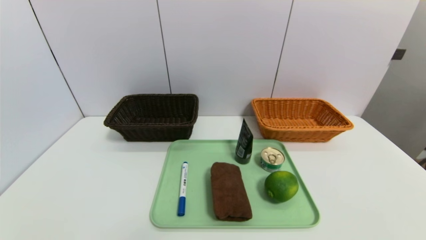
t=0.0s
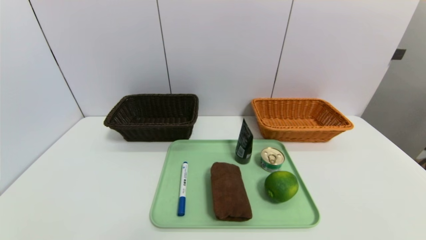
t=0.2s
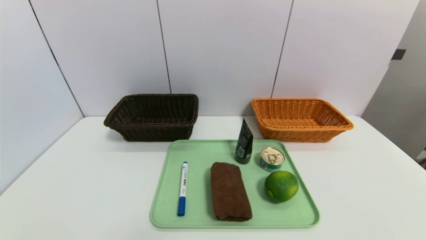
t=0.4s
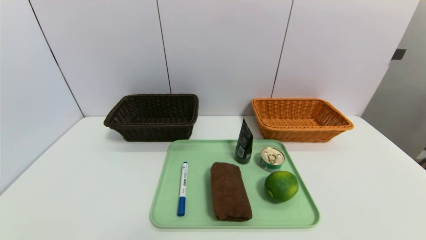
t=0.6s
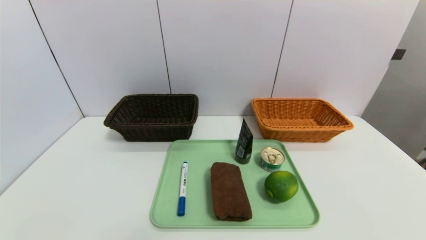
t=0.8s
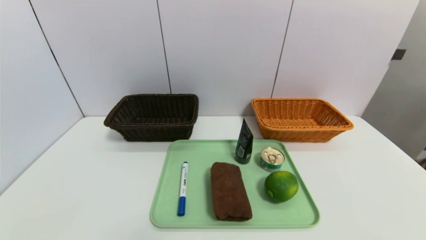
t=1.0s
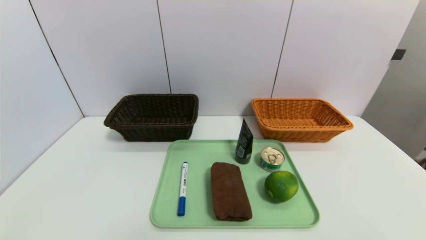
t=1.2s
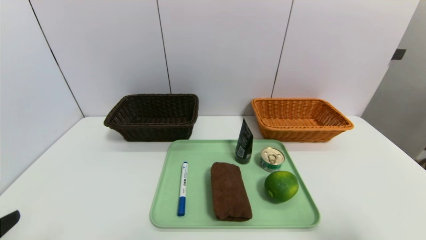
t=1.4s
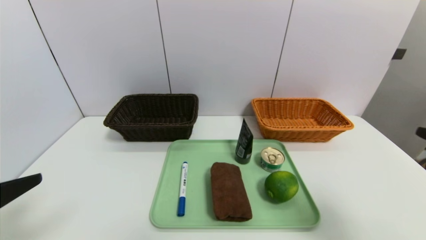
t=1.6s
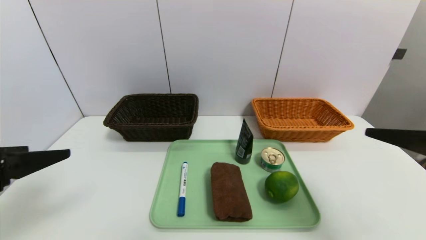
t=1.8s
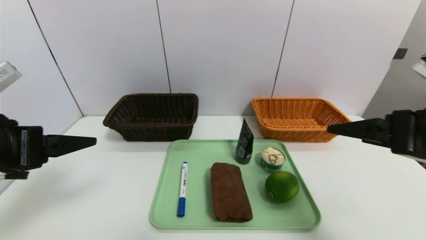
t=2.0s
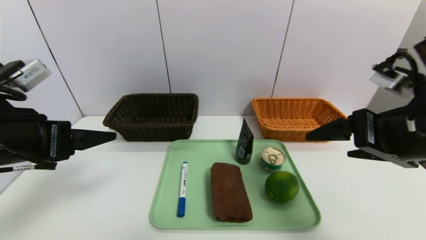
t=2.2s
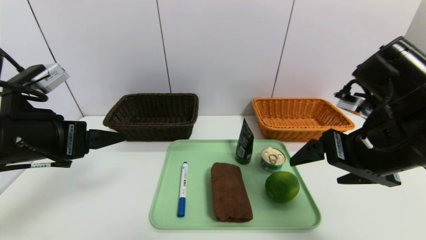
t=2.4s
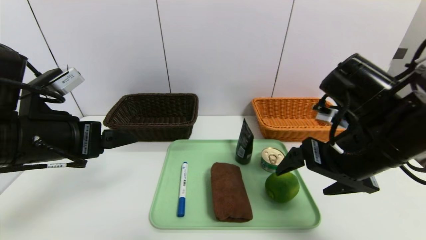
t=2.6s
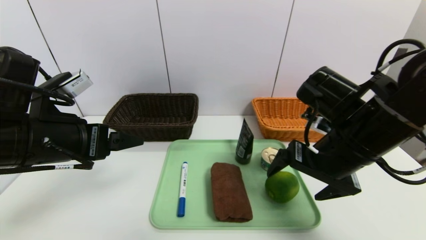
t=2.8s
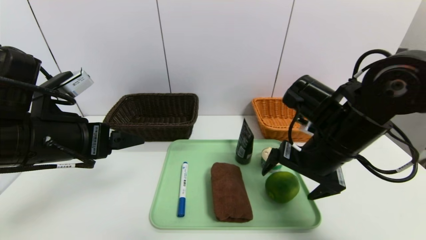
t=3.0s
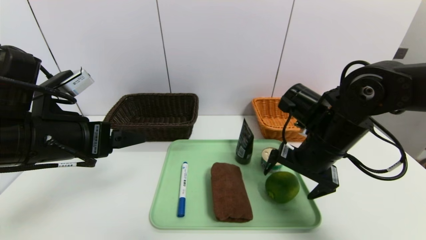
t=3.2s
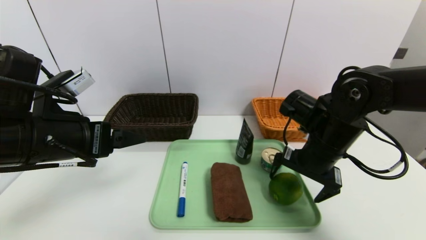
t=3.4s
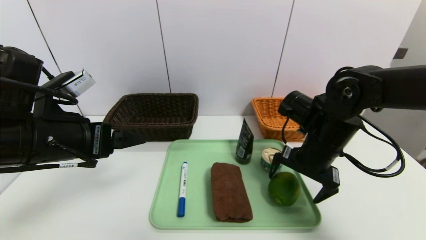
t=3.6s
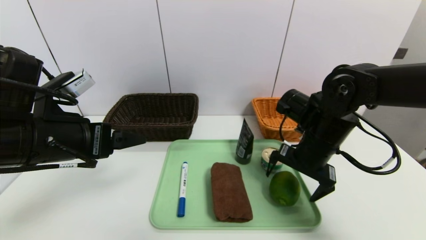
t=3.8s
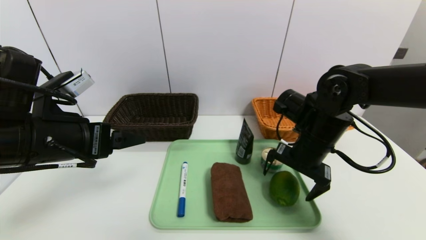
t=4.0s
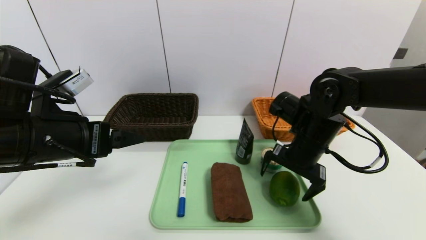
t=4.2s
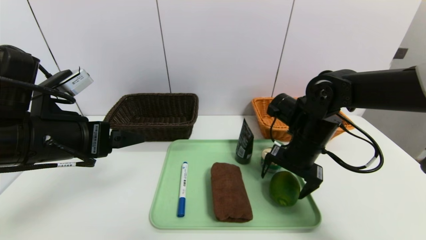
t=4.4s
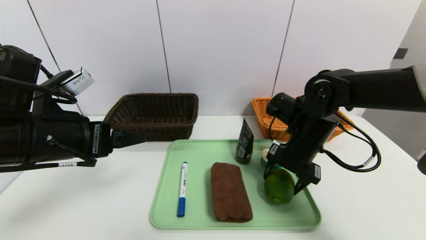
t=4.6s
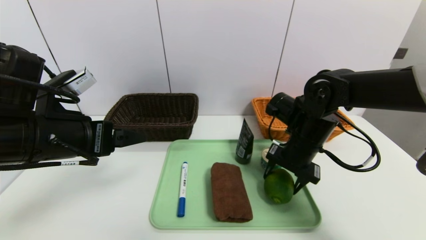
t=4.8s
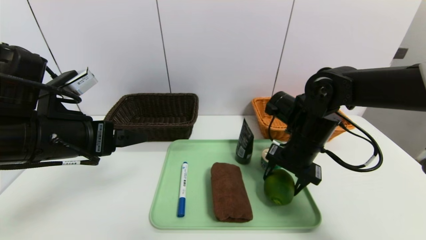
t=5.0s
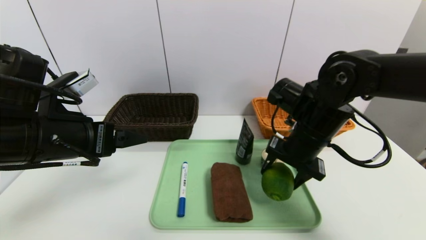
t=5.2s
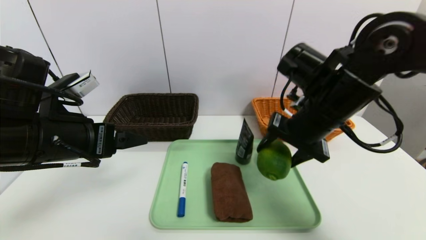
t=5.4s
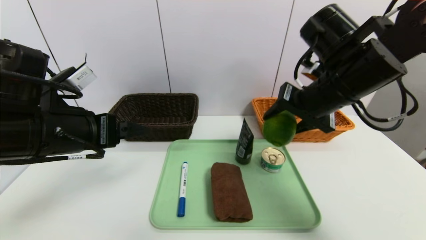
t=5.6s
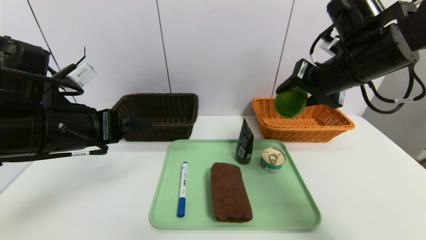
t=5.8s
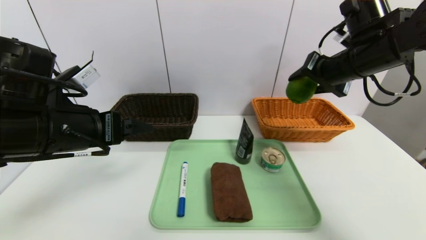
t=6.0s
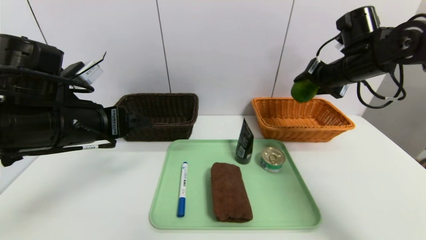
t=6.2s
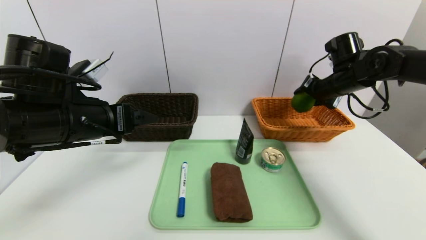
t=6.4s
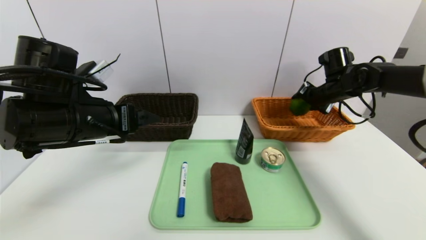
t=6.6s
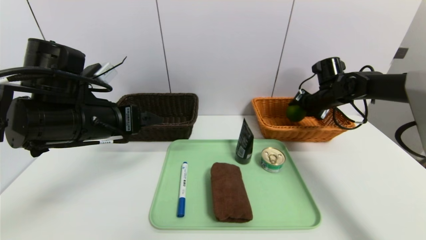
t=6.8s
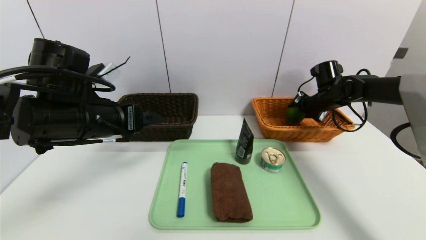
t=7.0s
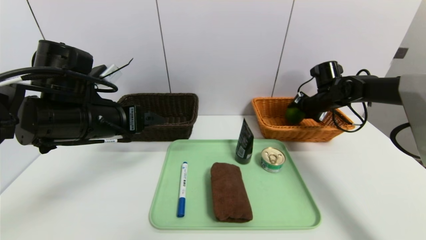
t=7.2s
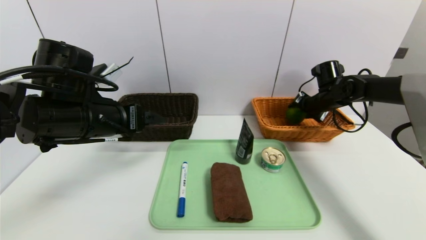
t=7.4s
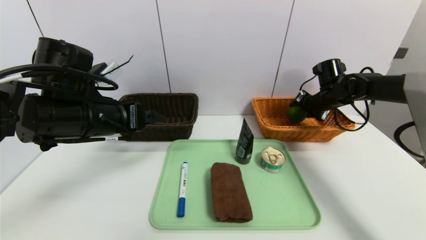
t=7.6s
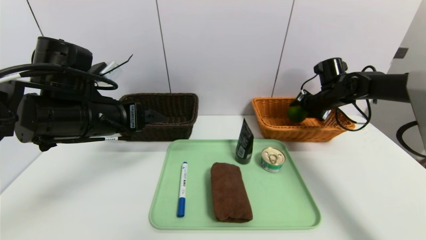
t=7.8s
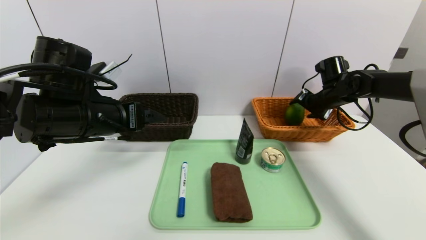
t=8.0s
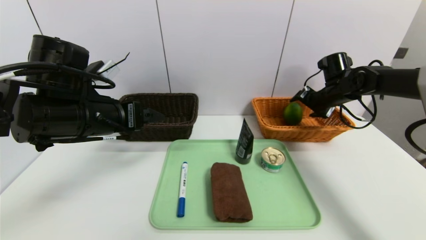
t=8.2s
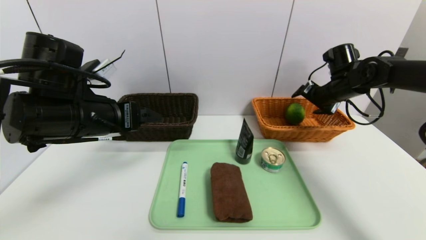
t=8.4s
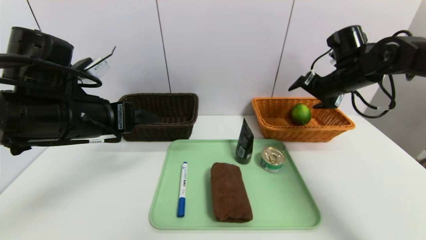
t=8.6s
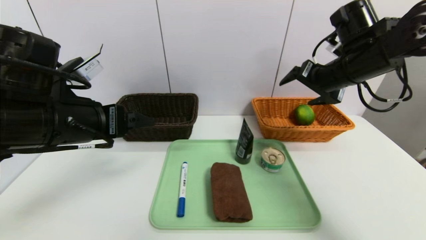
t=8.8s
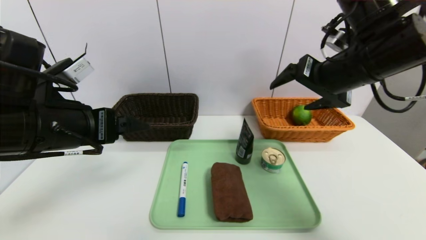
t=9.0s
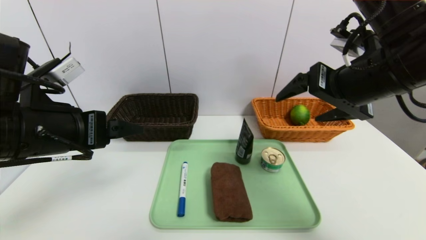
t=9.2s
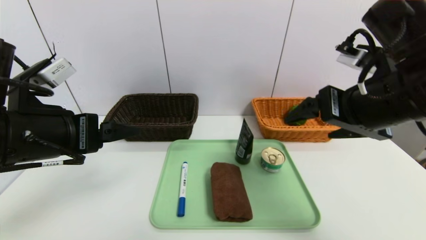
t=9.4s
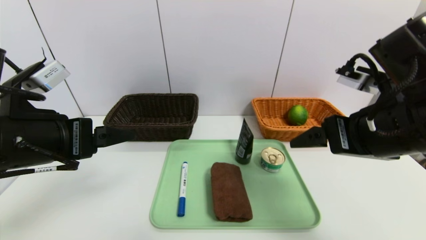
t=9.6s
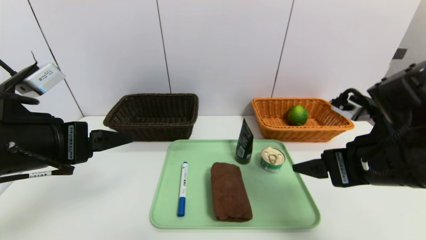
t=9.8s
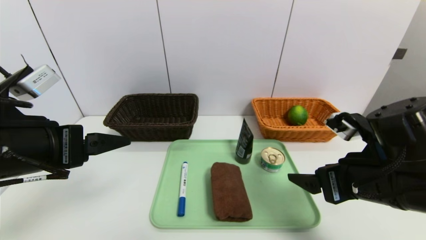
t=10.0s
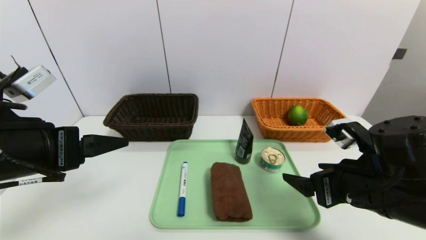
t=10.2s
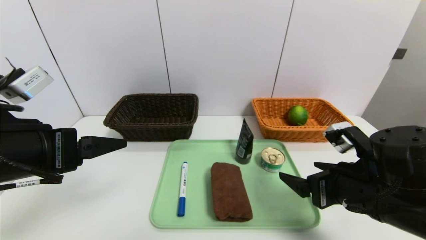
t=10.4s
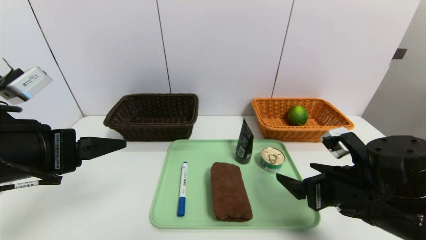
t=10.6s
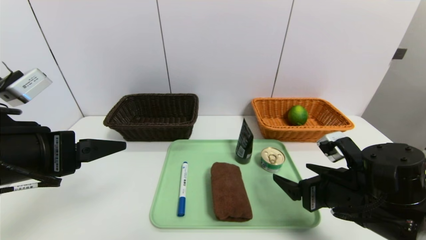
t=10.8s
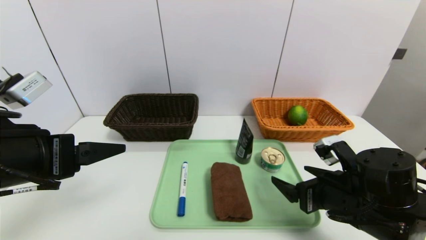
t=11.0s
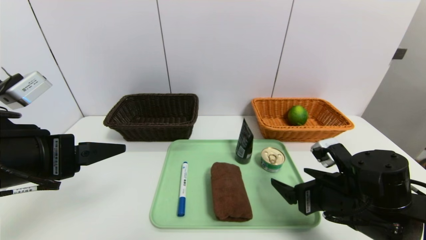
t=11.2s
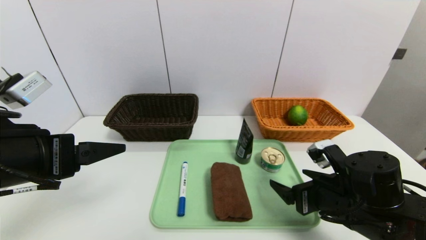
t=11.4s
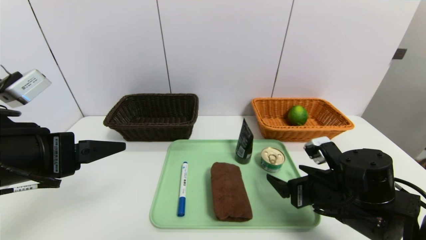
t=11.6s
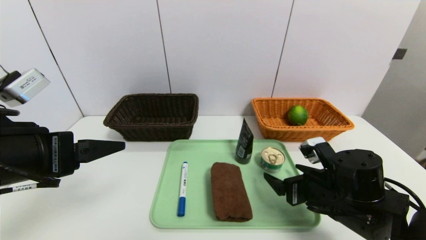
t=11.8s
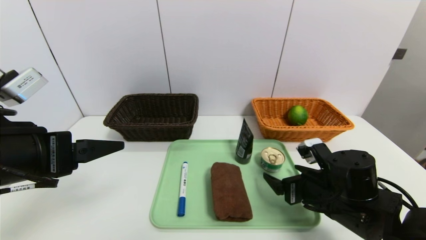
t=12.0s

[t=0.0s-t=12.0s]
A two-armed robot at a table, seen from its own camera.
Task of the whole recording: place the food in the right basket with the right gripper, and place the non food items in the left basket with the left gripper.
Step, t=0.0s to t=8.4s: Grasp the lime and put it in the right basket.
t=0.0s to t=1.6s: The two grippers go roughly 20 cm upward and forward.
t=1.6s to t=3.0s: The right gripper goes roughly 20 cm forward and to the left, while the left gripper is displaced forward and to the right by approximately 15 cm.
t=3.0s to t=4.4s: The right gripper moves forward, some 5 cm.
t=4.4s to t=6.0s: The right gripper goes some 15 cm upward and to the right, and closes.
t=6.0s to t=7.6s: The right gripper goes some 20 cm downward, forward and to the right.
t=7.6s to t=9.0s: The right gripper goes roughly 25 cm backward, upward and to the left, and opens, while the left gripper is displaced backward by some 5 cm.
t=9.0s to t=10.4s: The right gripper heads downward and backward, covering some 20 cm, while the left gripper shifts by some 5 cm.
t=10.4s to t=12.0s: The right gripper travels downward by about 5 cm.

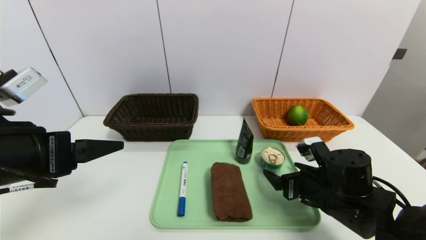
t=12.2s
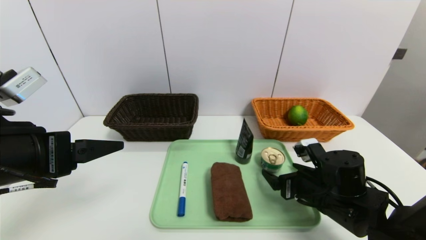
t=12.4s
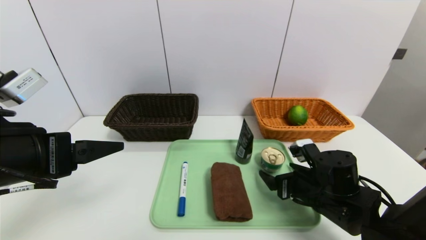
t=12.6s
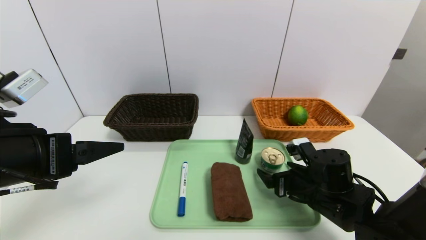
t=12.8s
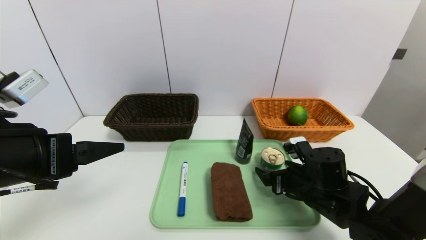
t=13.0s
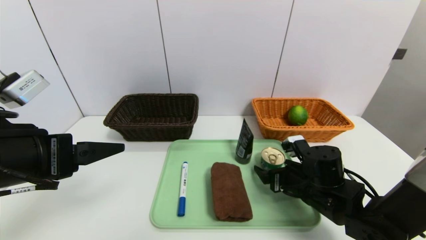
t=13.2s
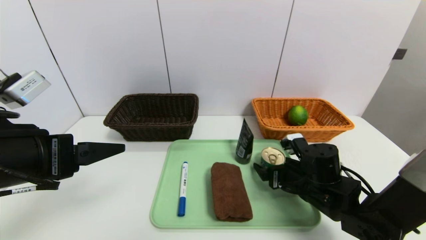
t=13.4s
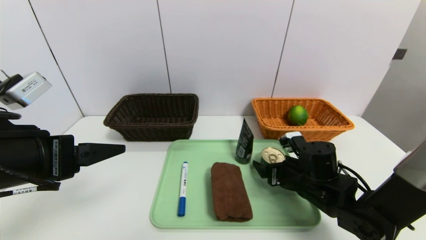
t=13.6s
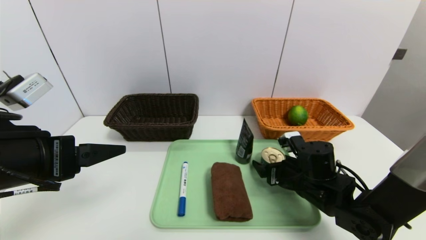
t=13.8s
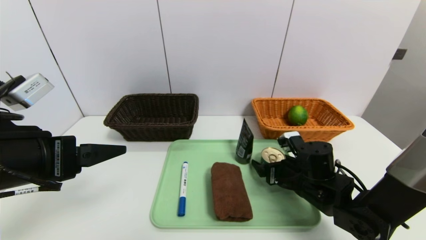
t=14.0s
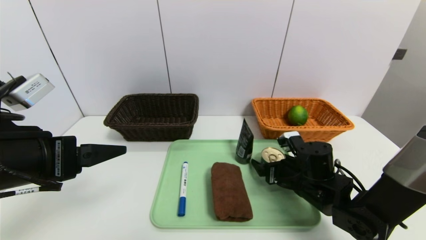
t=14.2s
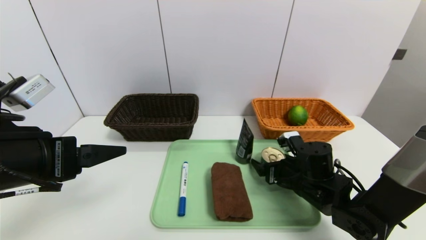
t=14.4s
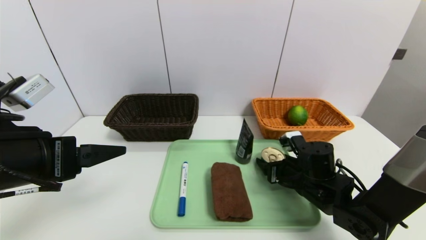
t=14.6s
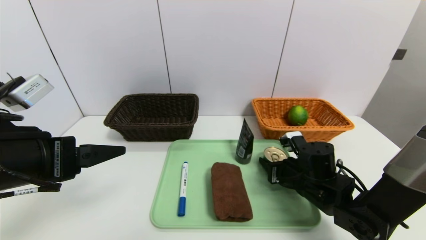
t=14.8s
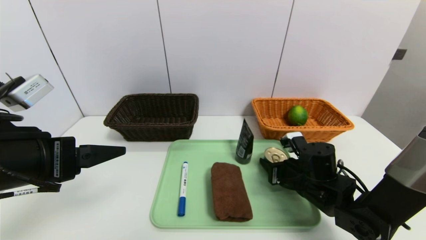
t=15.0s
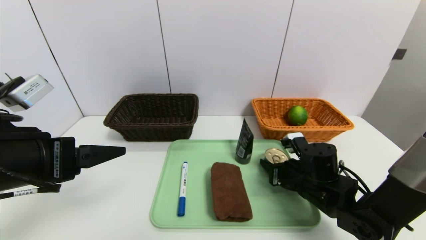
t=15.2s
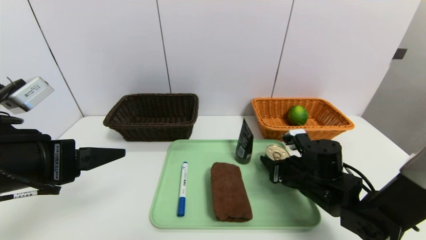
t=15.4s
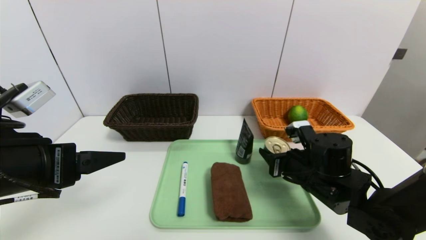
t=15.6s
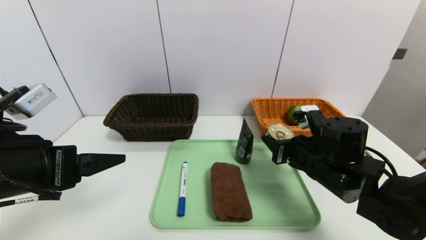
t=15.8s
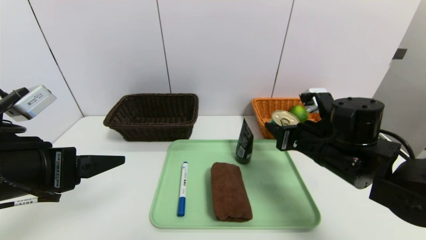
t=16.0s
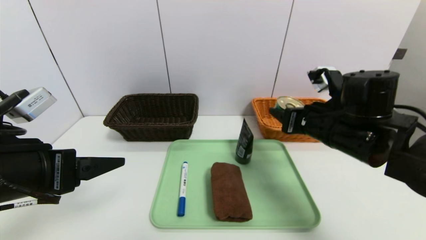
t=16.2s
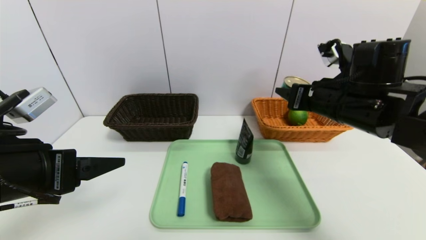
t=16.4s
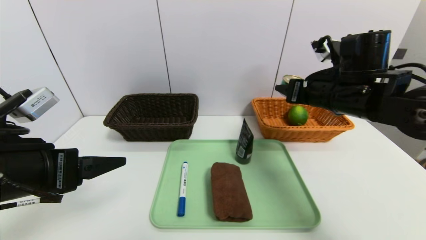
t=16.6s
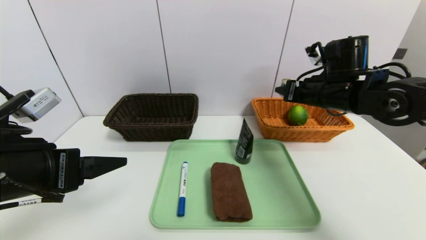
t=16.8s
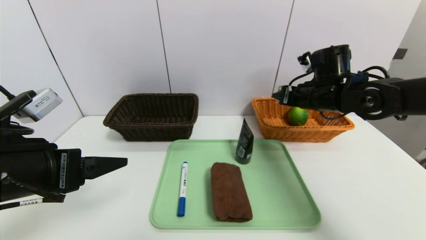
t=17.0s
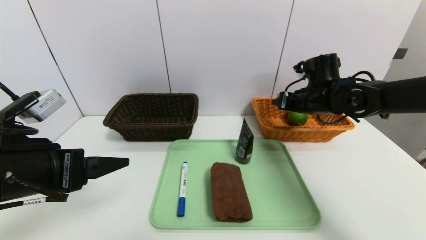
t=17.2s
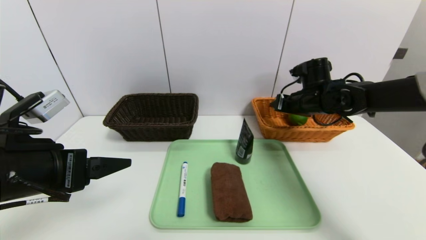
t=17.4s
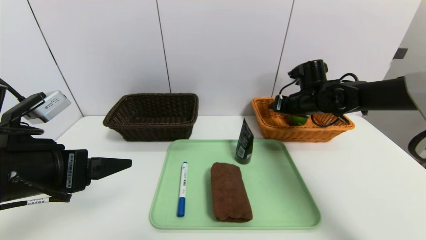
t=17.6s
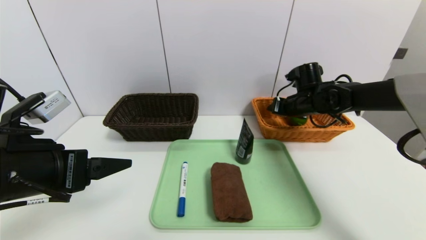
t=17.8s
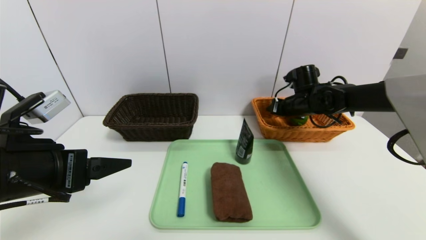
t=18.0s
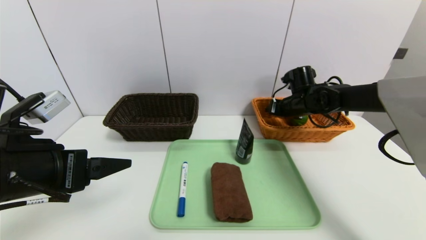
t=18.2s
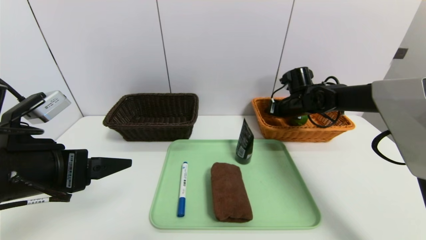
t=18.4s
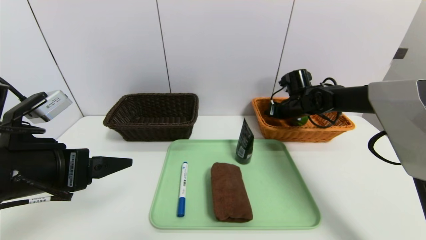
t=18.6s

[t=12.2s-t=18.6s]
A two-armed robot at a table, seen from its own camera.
Task of the whole recording: place the food in the right basket with the right gripper, and place the non food items in the left basket with the left gripper.
t=12.2s to t=13.8s: The right gripper shifts by some 5 cm.
t=13.8s to t=15.4s: The right gripper closes its fingers.
t=15.4s to t=17.0s: The right gripper travels upward and forward by approximately 20 cm.
t=17.0s to t=18.6s: The right gripper heads forward and downward, covering about 10 cm.
